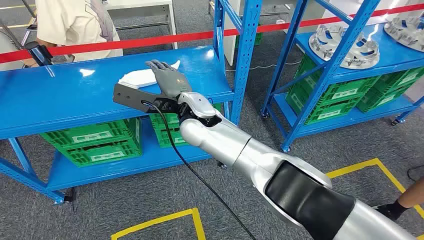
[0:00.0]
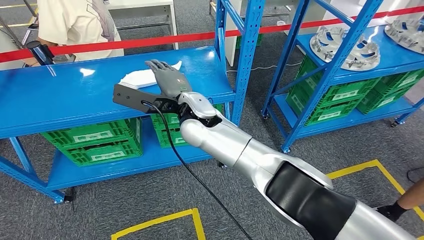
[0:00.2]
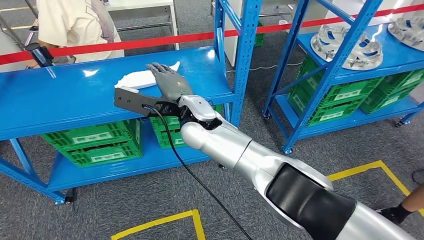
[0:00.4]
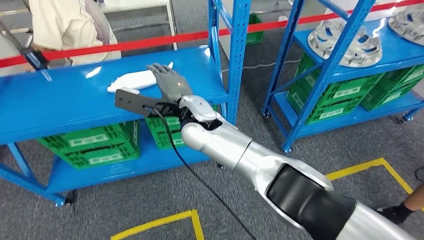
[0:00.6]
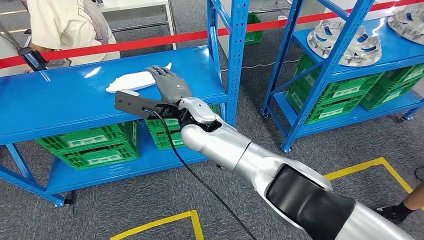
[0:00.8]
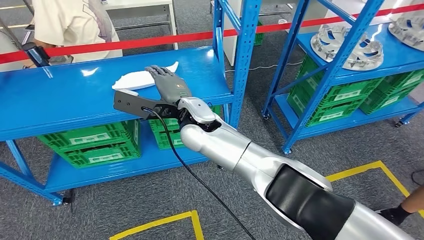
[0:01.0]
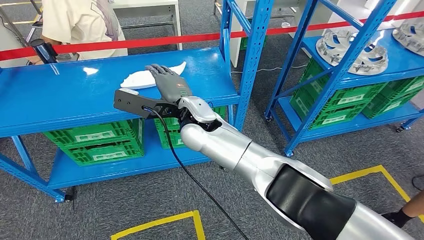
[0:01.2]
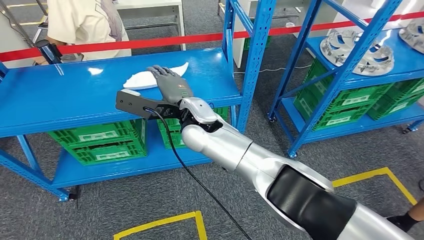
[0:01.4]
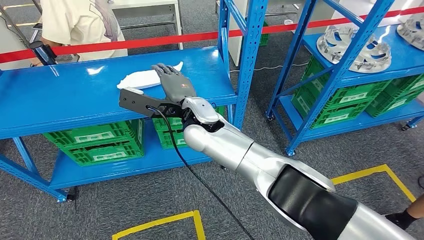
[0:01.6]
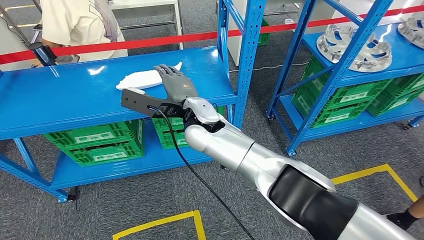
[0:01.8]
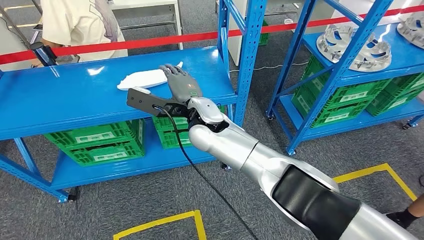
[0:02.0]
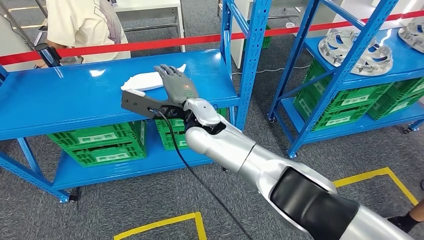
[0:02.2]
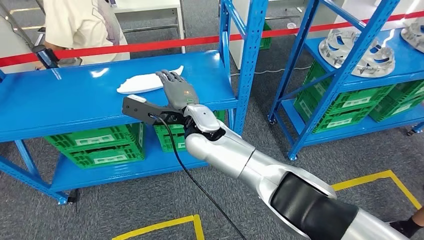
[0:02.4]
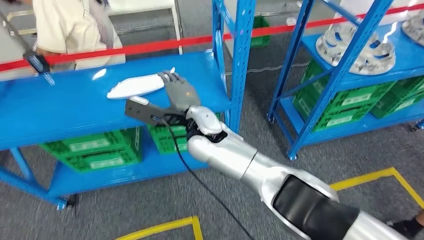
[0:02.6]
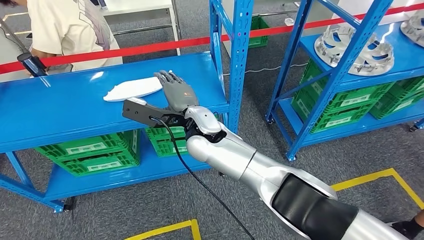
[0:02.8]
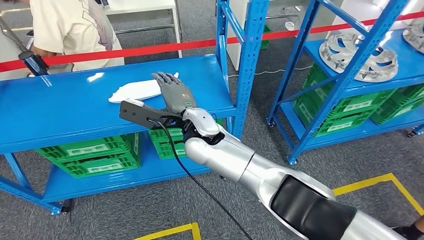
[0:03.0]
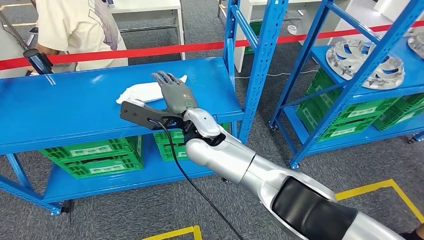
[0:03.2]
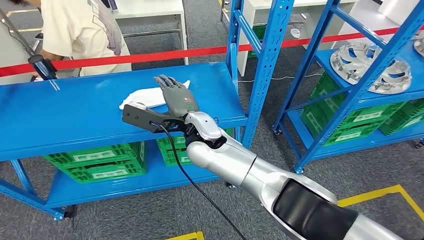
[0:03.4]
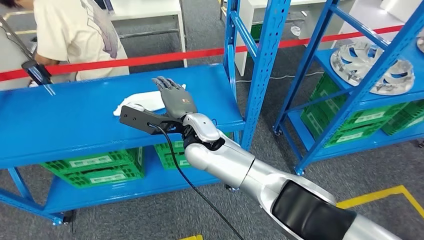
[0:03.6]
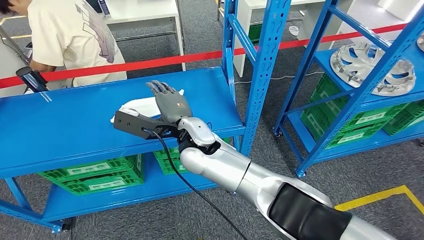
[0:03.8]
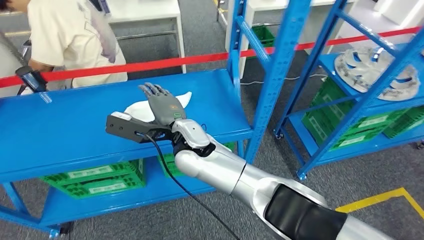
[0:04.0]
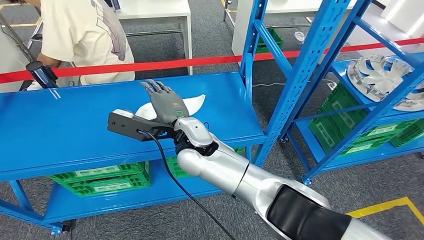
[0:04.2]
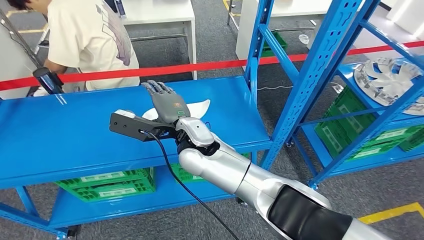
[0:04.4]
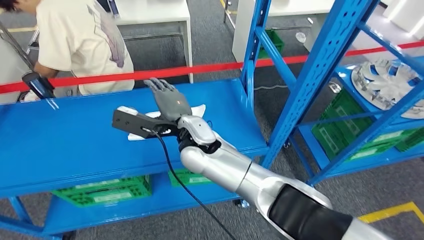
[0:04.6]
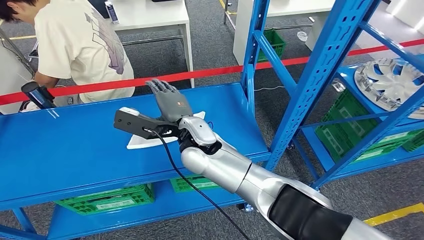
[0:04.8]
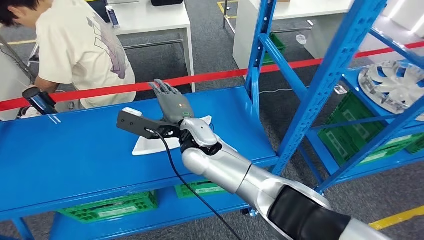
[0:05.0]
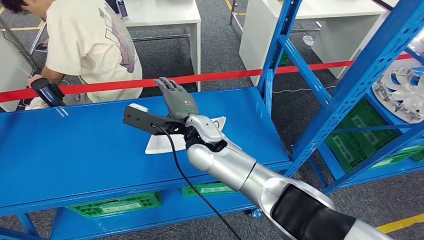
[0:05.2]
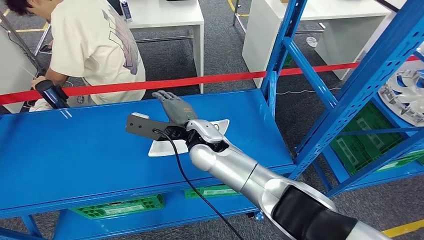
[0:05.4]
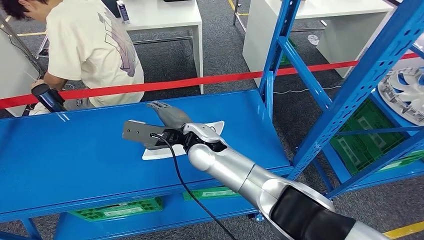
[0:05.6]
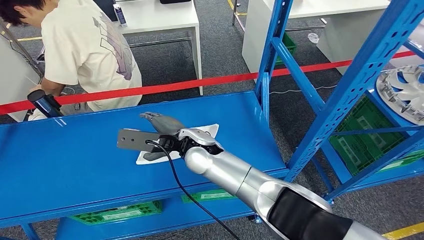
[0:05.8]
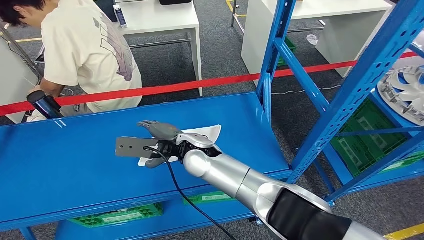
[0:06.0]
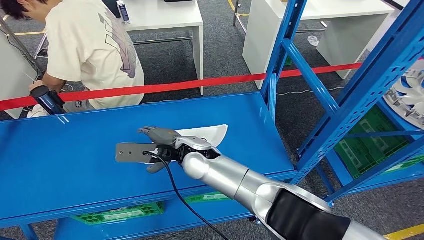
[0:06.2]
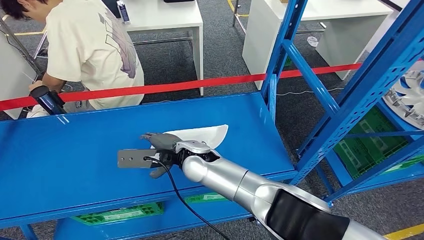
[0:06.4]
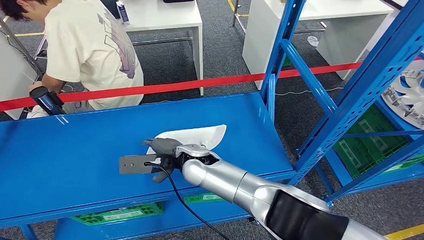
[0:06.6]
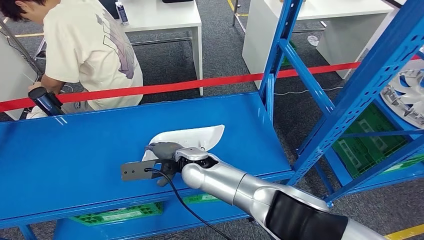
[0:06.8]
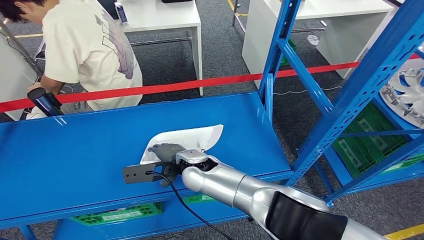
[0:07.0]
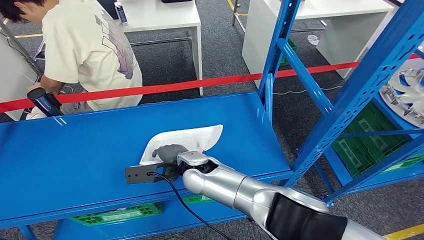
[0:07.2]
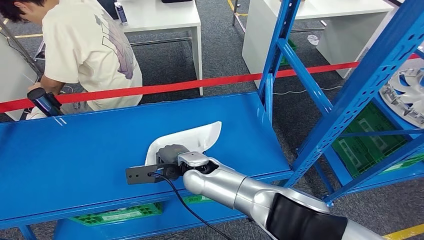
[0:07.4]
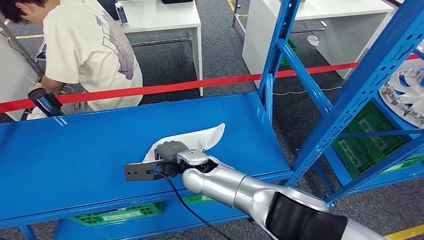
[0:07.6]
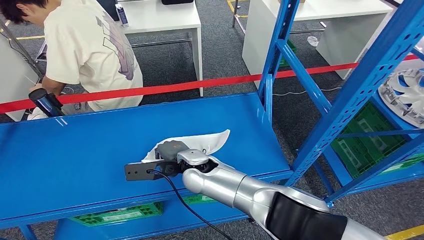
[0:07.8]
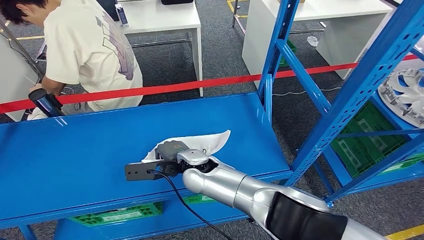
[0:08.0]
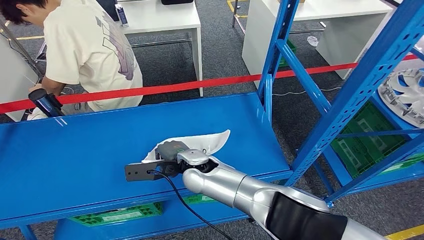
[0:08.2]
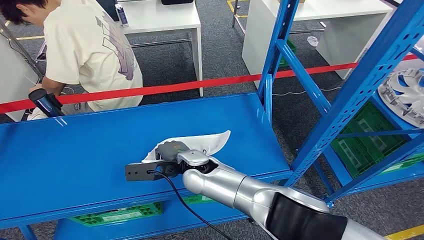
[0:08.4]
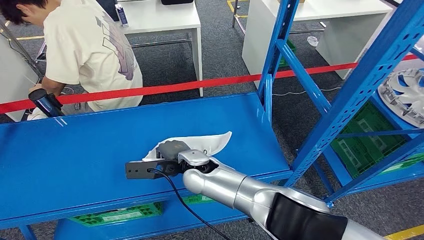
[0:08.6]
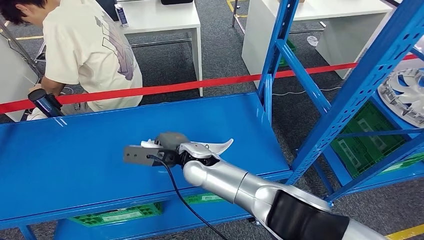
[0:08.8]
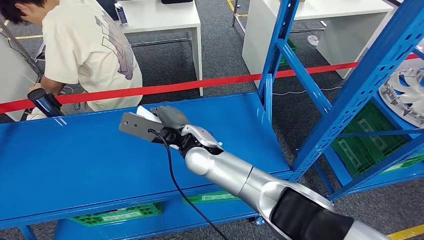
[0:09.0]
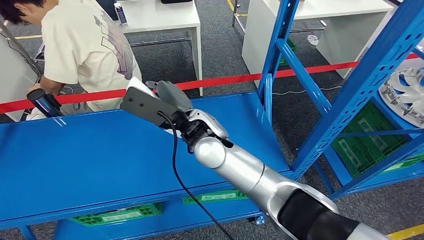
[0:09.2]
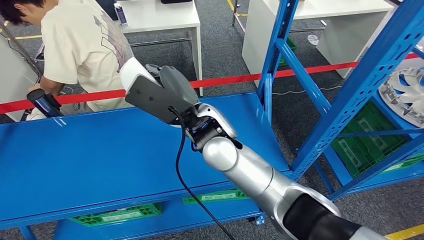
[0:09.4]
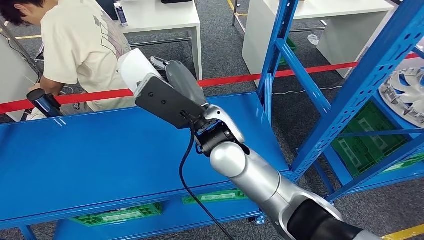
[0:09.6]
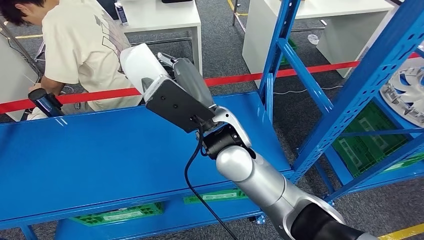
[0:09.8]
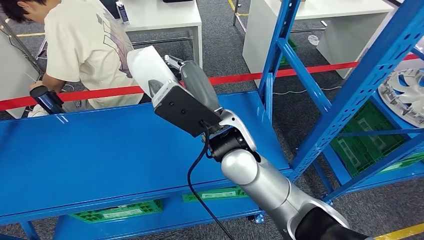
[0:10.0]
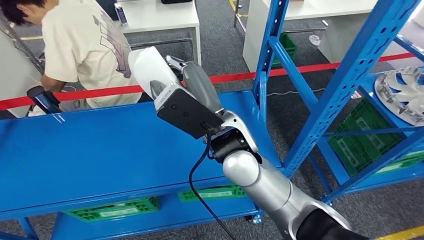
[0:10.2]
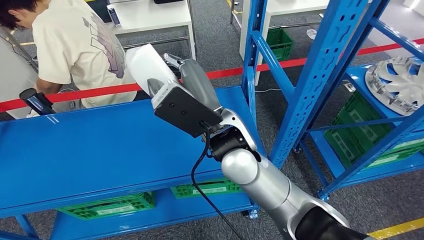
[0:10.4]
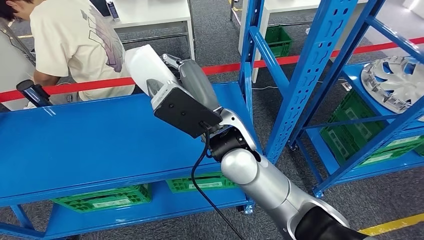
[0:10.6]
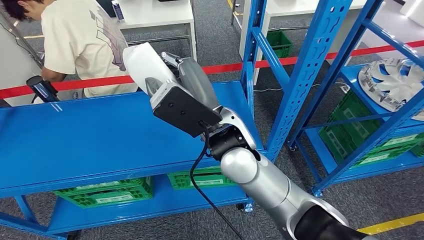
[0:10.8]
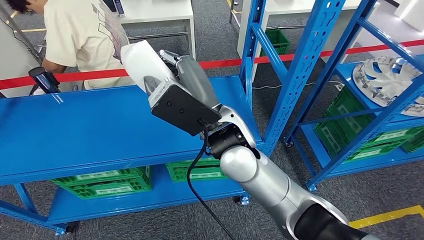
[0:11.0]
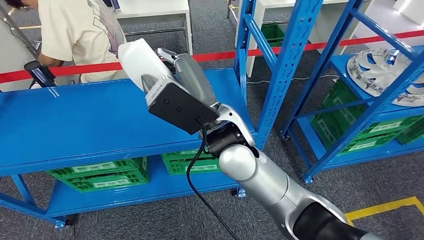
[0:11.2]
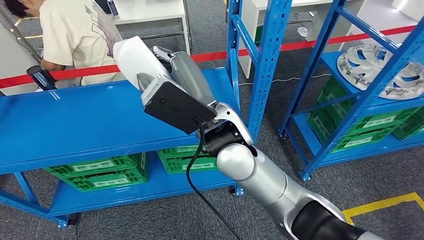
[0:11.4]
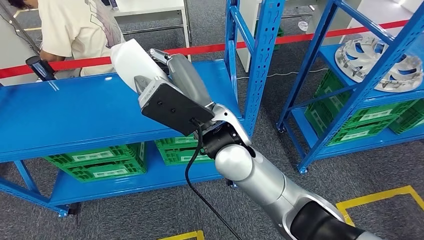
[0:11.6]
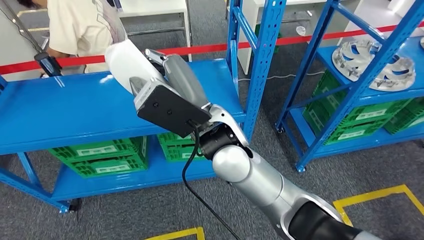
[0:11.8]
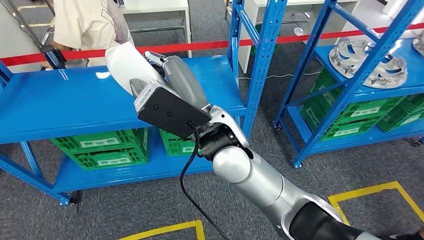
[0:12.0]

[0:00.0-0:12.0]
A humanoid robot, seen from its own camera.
Step, 0:00.0 to 0:11.2: Pick up the small component from the shelf.
0:06.0 to 0:07.6: The right hand changes place by about 5 cm.
0:07.6 to 0:09.0: The right hand is displaced upward by about 5 cm.

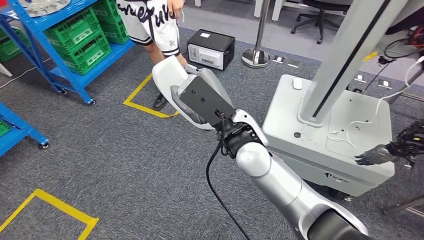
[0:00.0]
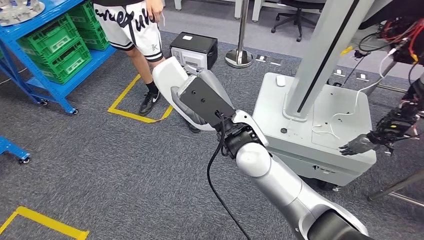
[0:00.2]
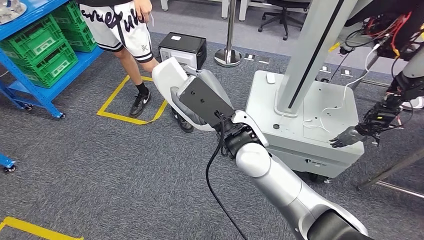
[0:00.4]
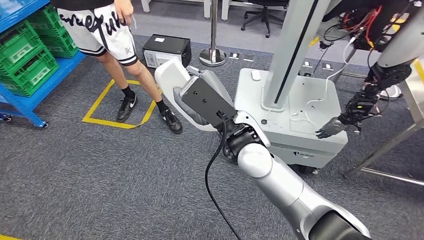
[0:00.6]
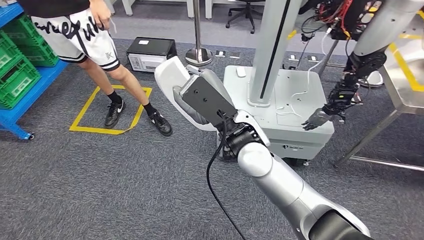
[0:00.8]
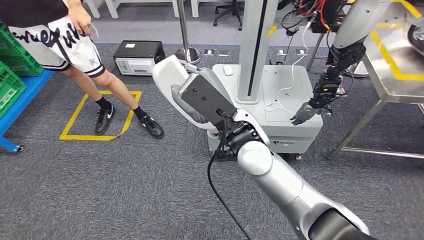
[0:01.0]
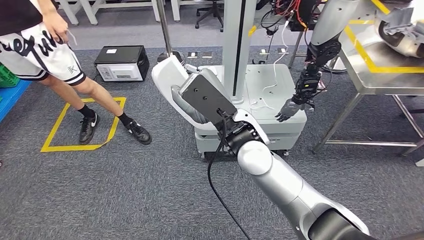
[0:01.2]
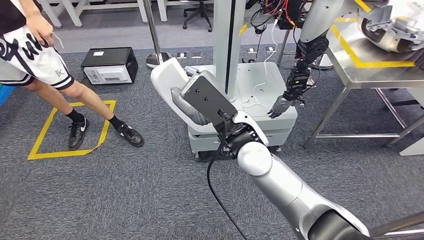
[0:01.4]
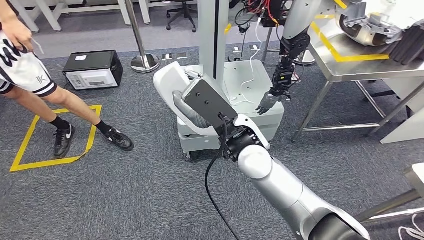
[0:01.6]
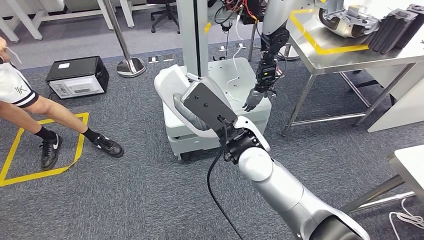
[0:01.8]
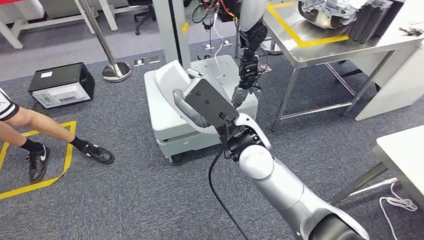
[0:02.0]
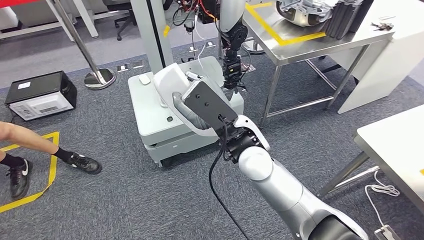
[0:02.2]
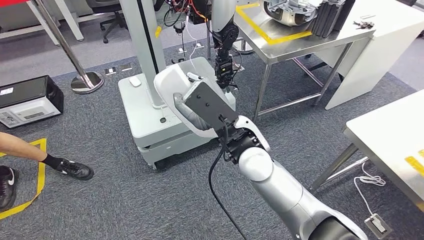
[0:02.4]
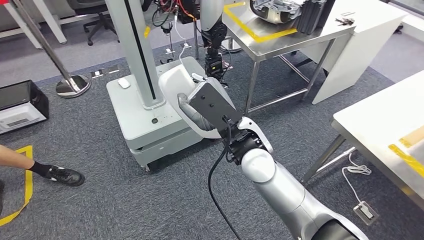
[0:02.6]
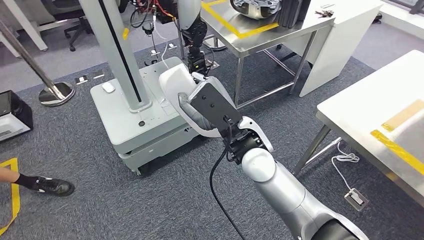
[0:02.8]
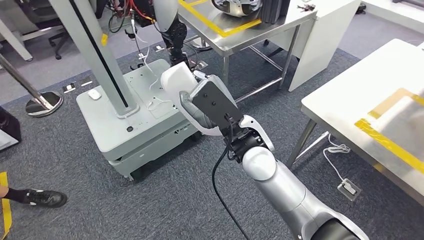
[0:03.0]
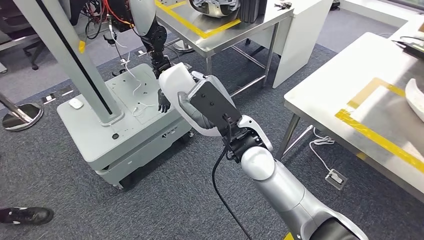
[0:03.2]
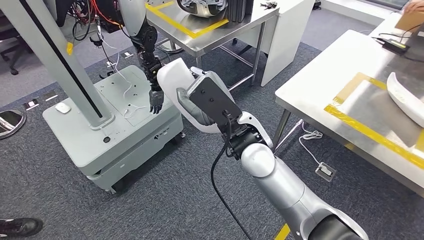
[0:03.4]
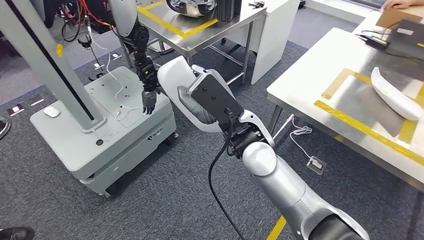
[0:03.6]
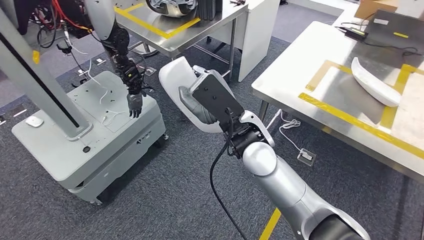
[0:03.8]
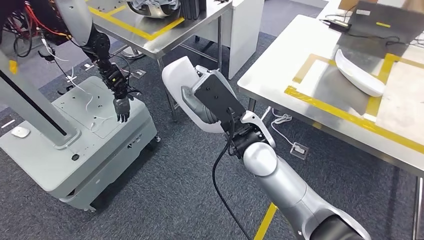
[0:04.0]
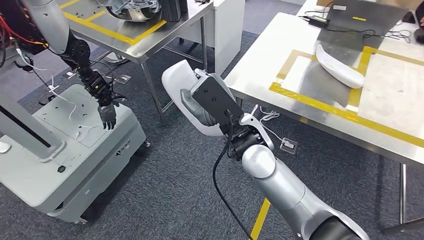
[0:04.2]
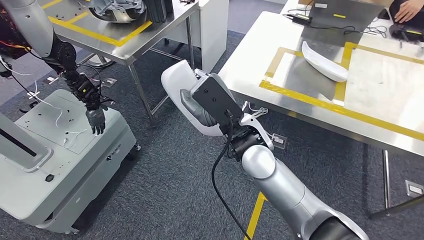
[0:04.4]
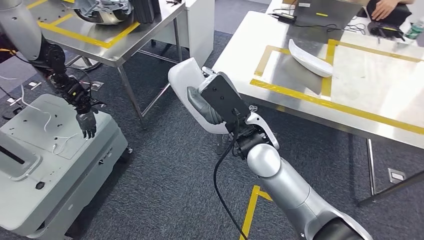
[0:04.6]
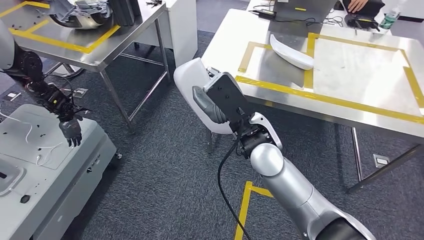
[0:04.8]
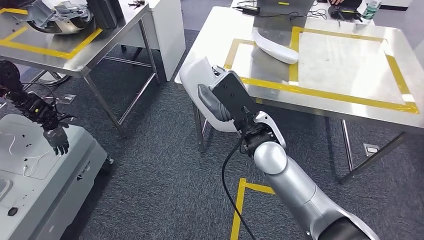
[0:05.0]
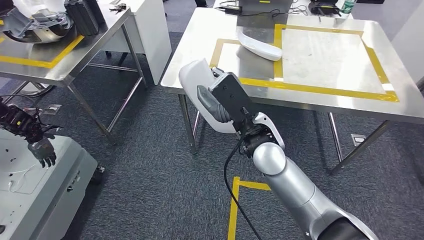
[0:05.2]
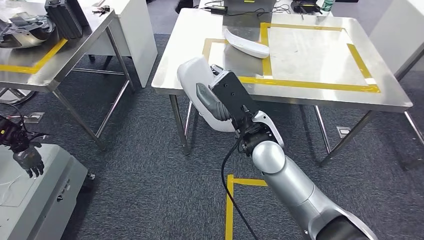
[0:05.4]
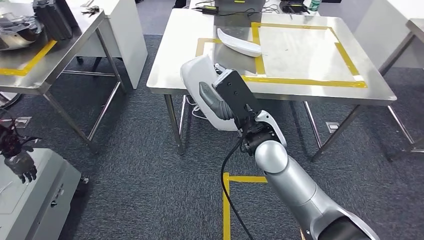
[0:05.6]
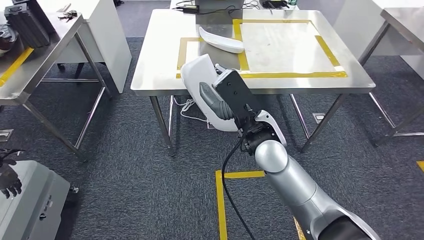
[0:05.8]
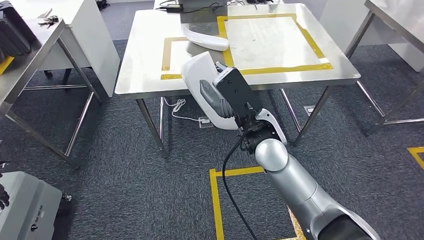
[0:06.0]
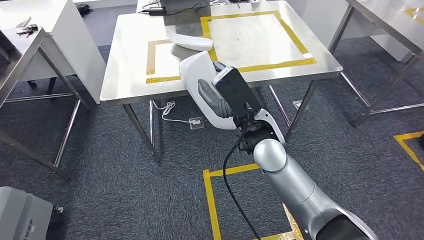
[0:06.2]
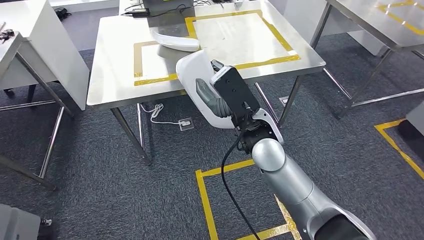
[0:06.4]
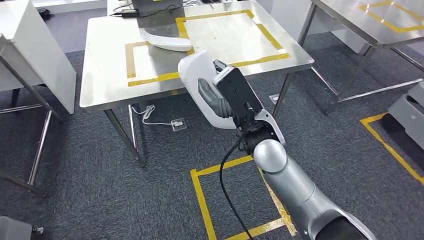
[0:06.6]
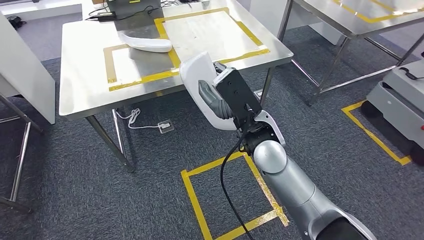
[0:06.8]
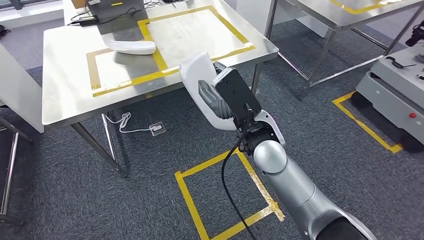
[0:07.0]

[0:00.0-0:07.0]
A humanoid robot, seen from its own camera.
Step, 0:00.0 to 0:05.4: Move the small component to the workbench.
